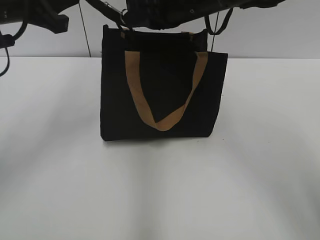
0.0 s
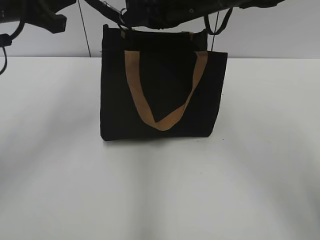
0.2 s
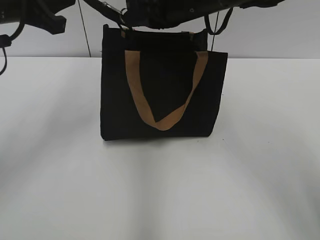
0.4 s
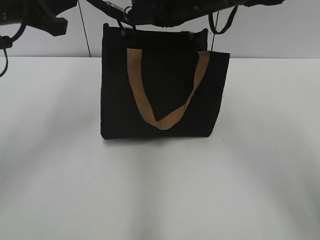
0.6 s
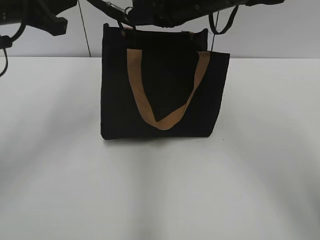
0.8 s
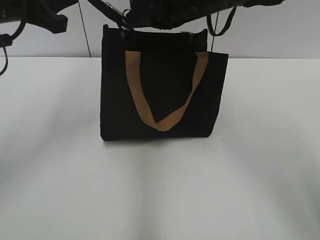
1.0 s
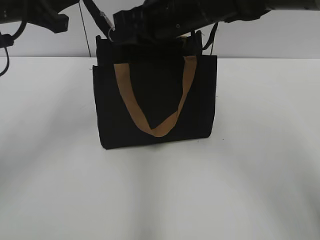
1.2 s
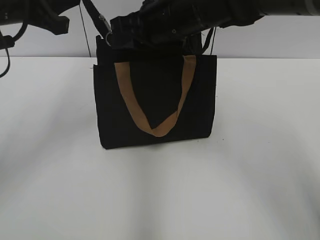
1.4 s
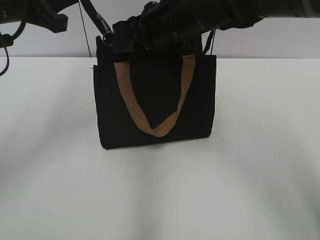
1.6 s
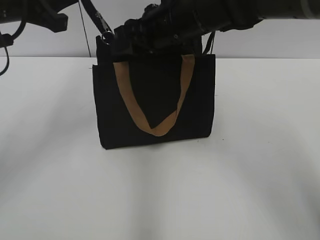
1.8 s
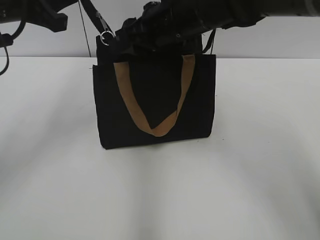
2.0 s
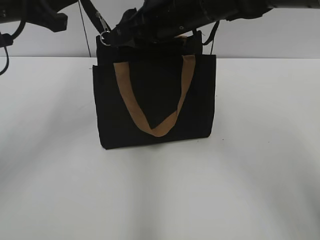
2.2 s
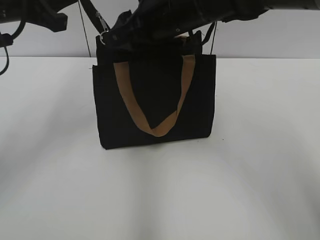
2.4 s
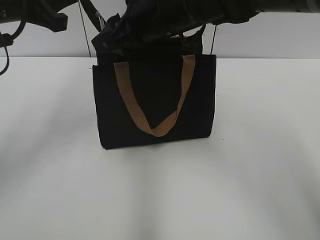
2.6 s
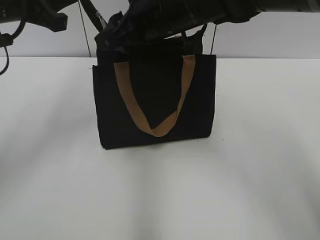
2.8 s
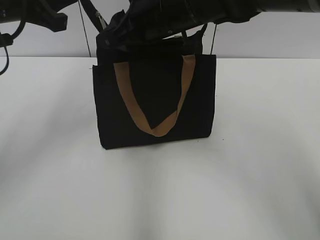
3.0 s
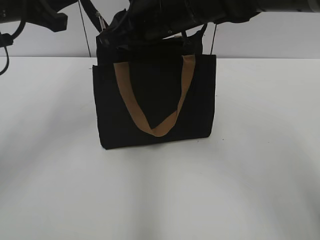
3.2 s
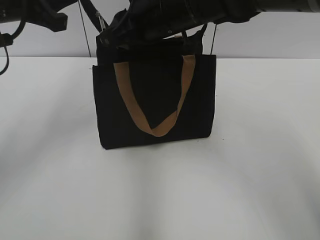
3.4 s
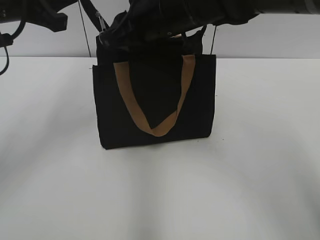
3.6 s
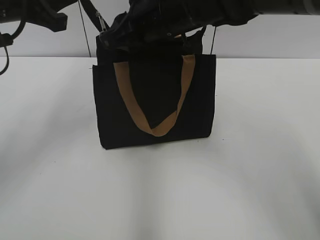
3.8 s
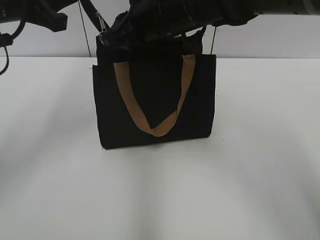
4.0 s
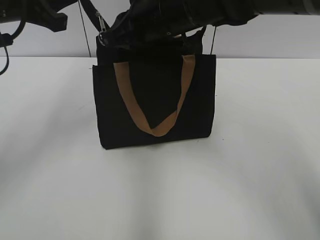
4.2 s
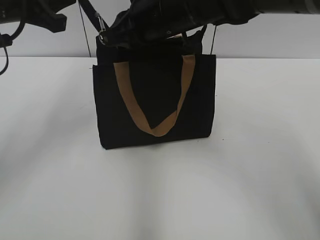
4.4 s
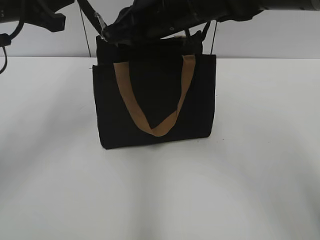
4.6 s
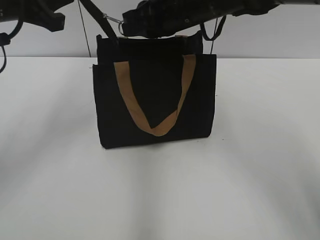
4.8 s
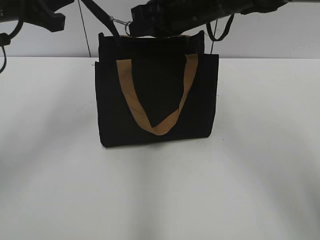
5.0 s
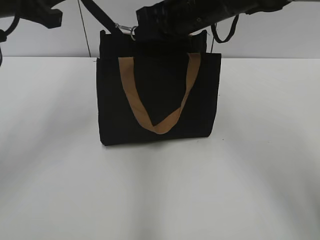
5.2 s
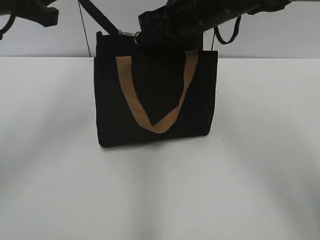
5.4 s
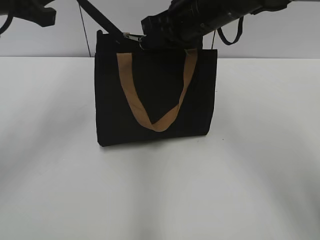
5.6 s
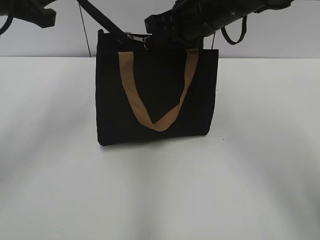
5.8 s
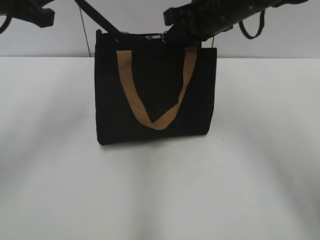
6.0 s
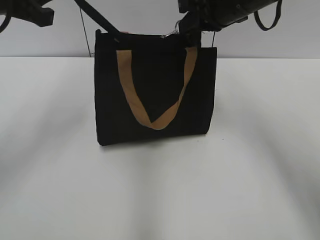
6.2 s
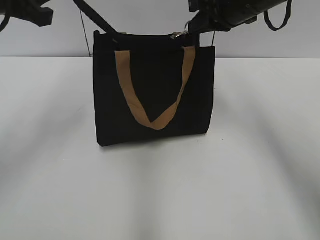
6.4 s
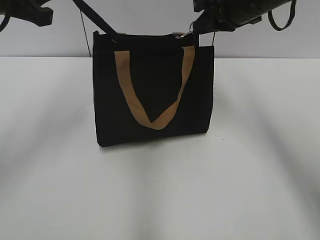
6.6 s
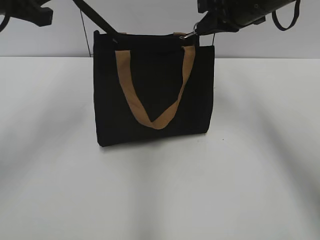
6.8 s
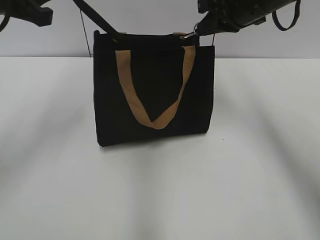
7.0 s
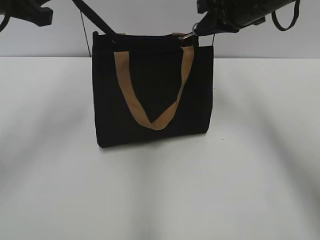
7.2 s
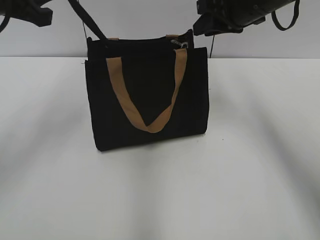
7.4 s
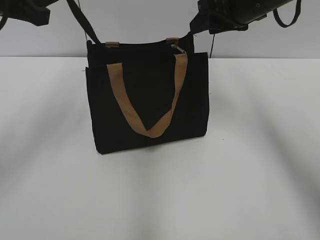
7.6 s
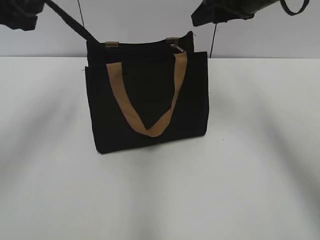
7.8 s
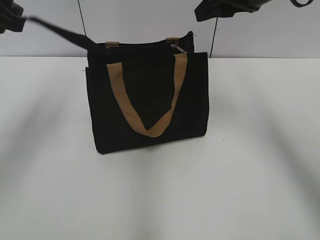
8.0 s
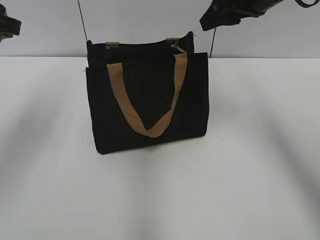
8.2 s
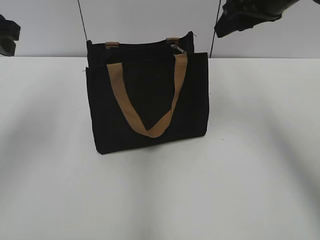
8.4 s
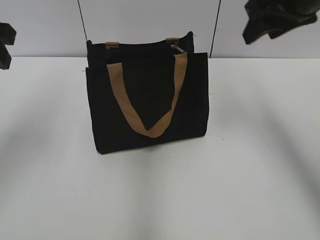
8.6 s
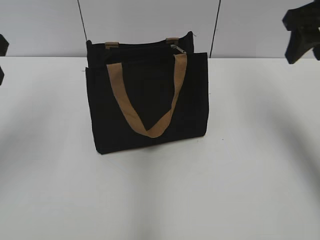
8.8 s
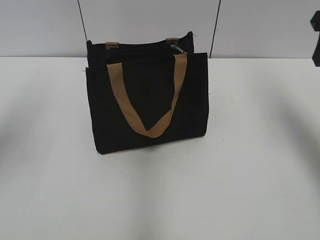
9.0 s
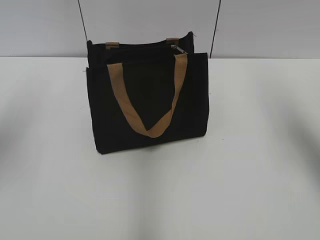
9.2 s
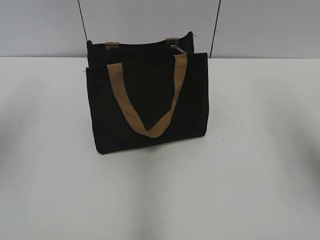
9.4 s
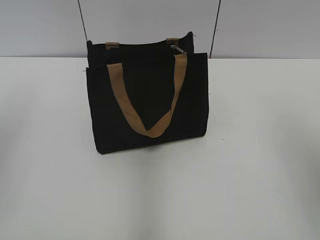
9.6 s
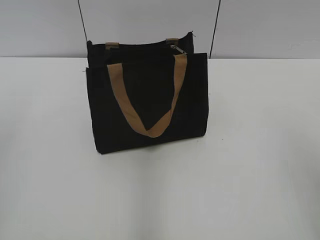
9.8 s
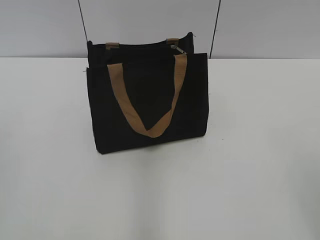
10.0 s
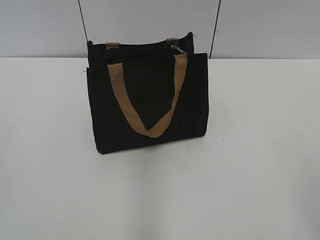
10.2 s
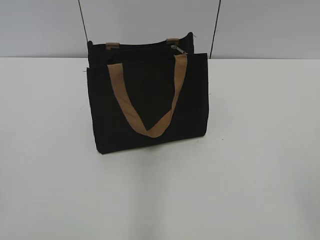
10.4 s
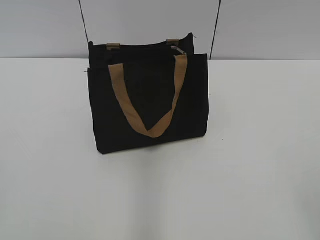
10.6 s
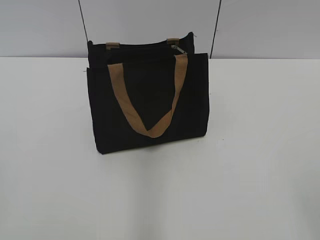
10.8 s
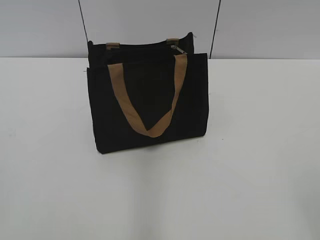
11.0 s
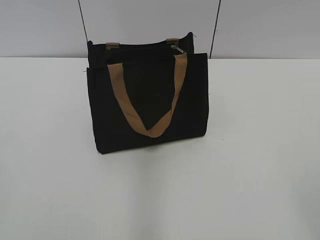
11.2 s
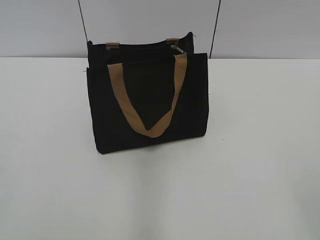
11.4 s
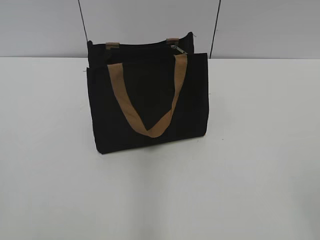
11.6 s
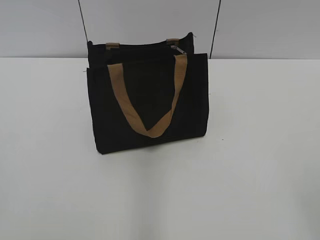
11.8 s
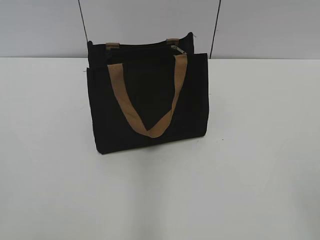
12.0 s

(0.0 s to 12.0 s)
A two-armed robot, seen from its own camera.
Step, 0.0 s - 7.2 s: Zip up the bag with your right hand.
Step, 7.6 s - 8.0 s: Grab the zipper with your left hand.
0.0 s - 1.6 s: The grippers make only small movements.
1.6 s - 3.0 s: The right gripper opens up.
3.0 s - 4.4 s: The right gripper closes its fingers.
4.4 s - 6.0 s: The right gripper goes about 10 cm to the right.
6.0 s - 7.6 s: The right gripper goes roughly 5 cm to the right, and opens its fingers.
7.6 s - 9.0 s: The right gripper goes roughly 15 cm to the right and backward; the left gripper moves some 5 cm, and opens up.
9.0 s - 10.4 s: The two grippers go some 30 cm backward.
